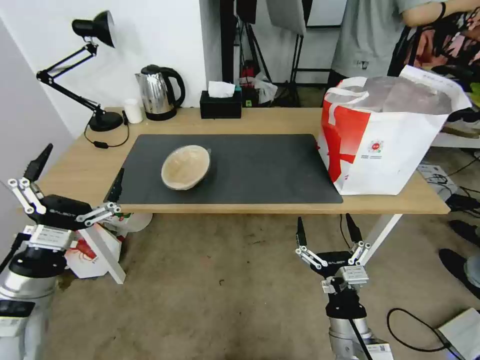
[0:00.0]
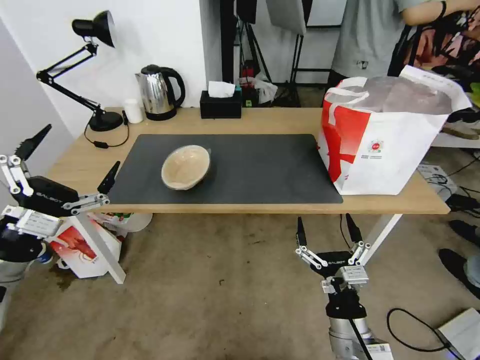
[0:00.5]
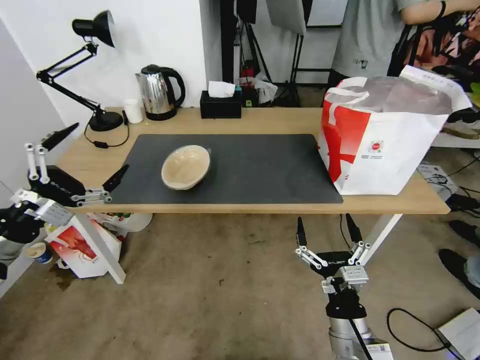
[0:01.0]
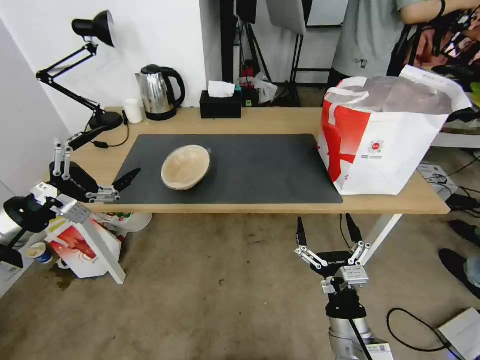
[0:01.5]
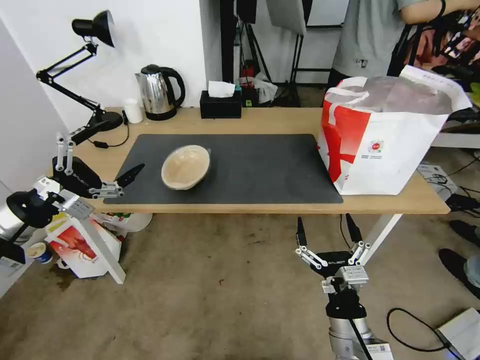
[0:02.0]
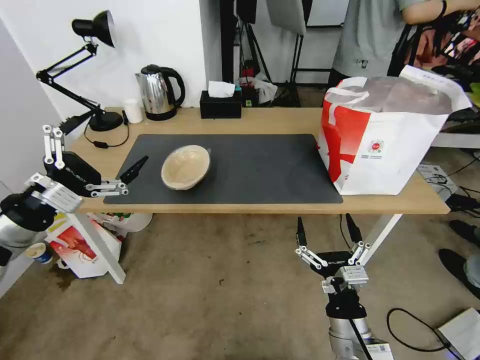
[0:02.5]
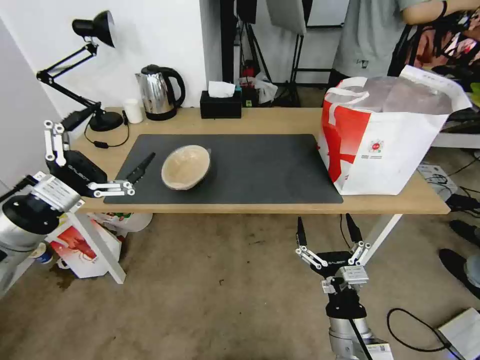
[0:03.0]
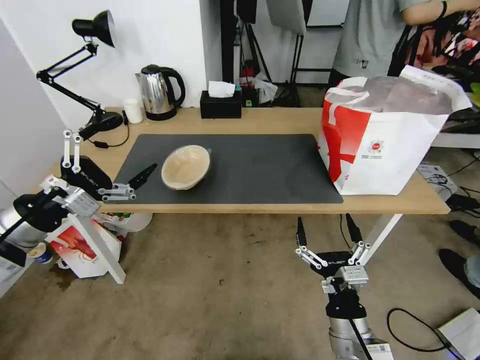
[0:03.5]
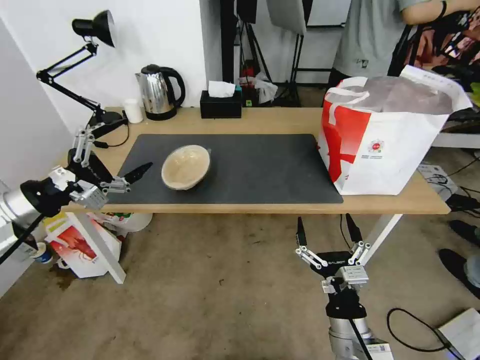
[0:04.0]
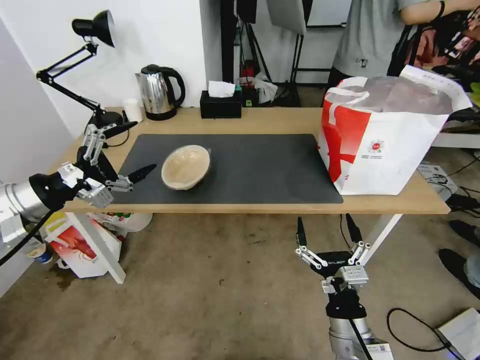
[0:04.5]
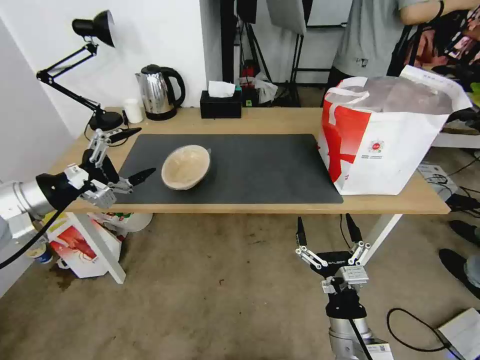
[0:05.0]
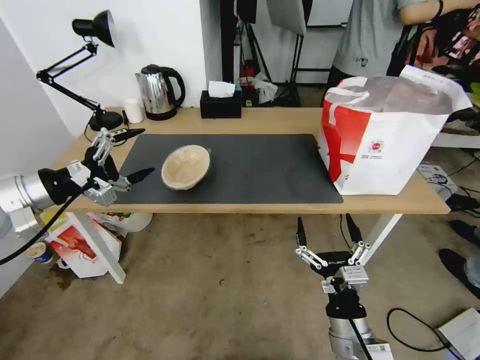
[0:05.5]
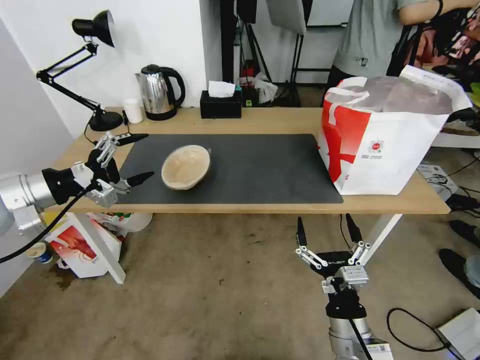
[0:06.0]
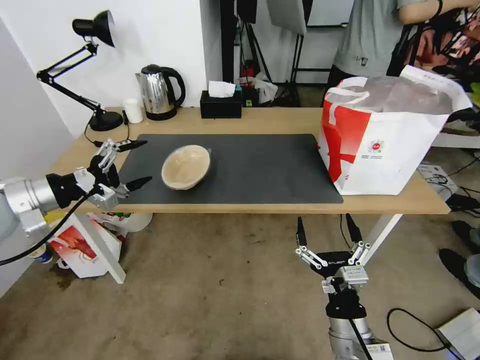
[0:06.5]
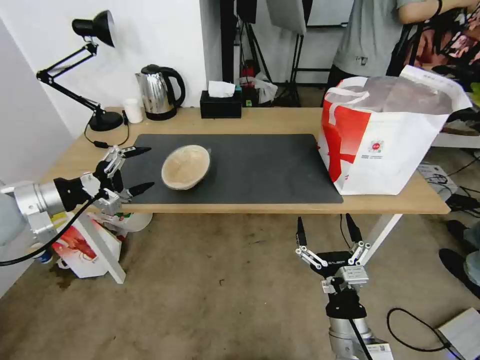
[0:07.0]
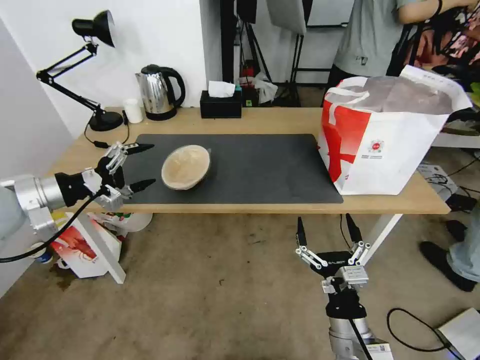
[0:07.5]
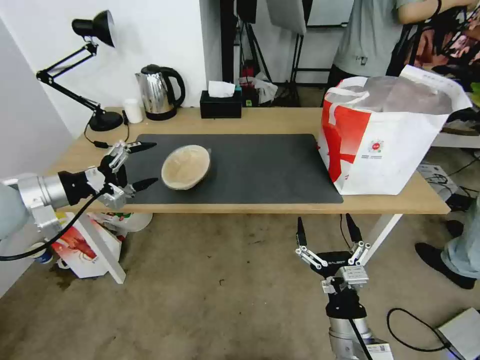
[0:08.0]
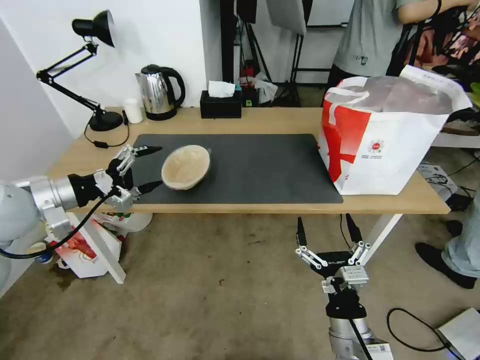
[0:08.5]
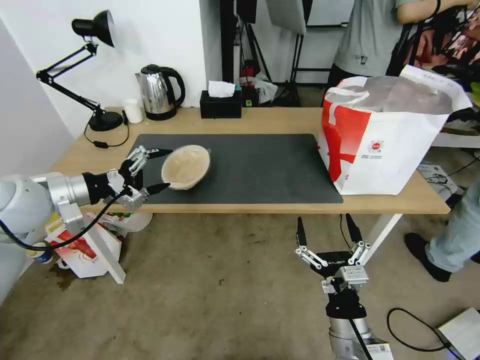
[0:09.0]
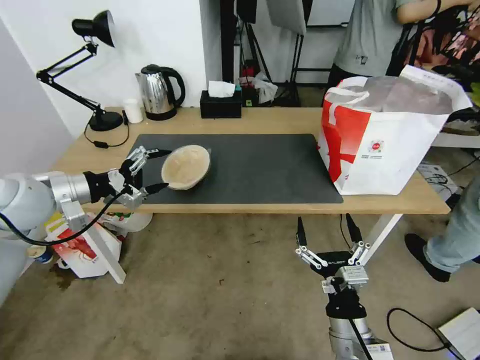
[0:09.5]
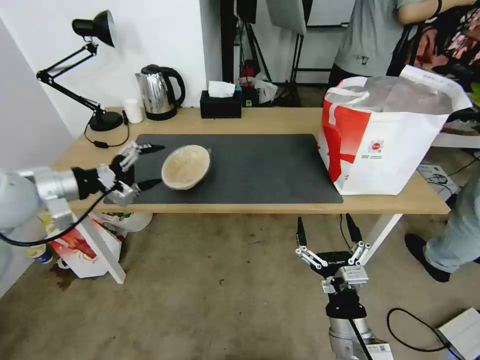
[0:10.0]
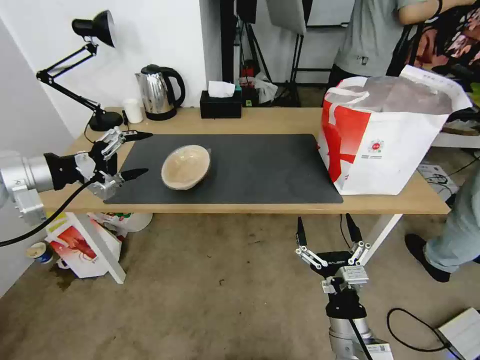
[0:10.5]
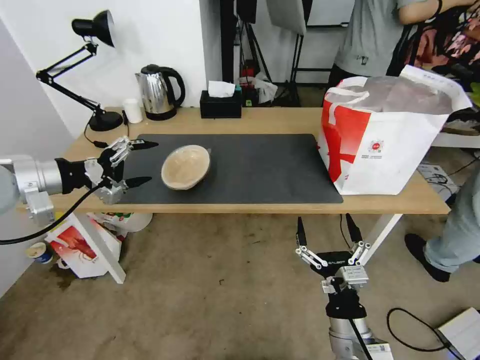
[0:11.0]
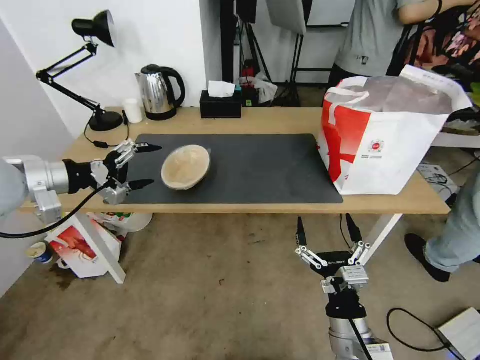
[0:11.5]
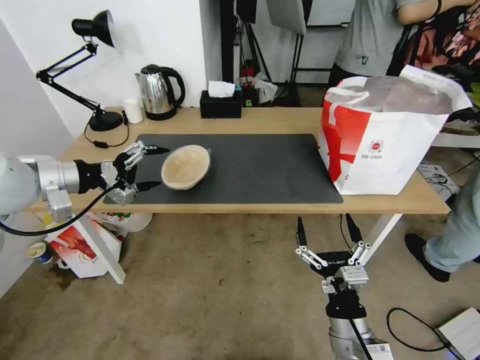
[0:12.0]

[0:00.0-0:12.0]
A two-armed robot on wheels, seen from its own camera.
Task of the whole recording: Pick up the trash from the table and place it into the takeout bag.
0:00.0 to 0:02.0: The left gripper travels upward, forward and to the left by about 15 cm.
0:04.0 to 0:06.0: The grippers make only small movements.
0:06.0 to 0:08.0: The grippers stay close to where they were, moving slightly.
0:08.0 to 0:12.0: The grippers stay close to where they were, moving slightly.

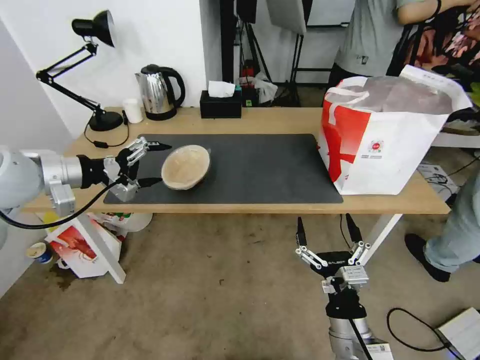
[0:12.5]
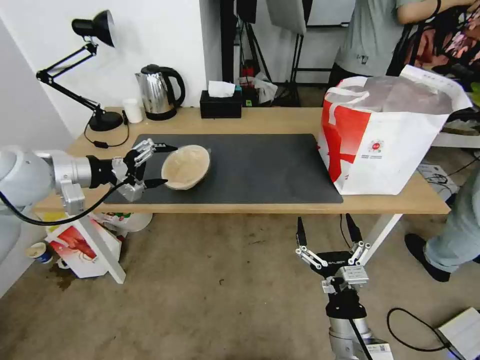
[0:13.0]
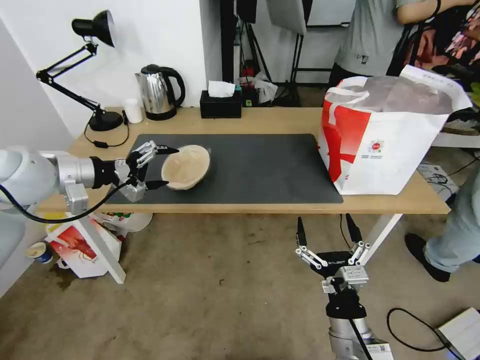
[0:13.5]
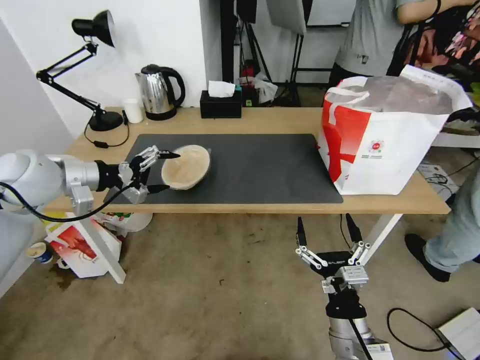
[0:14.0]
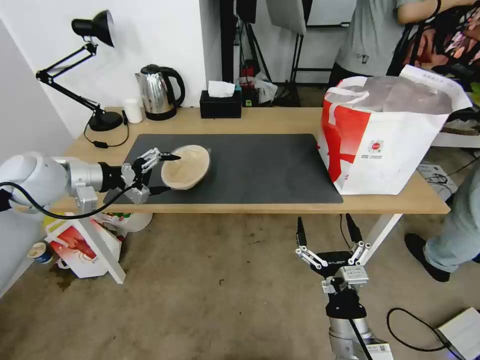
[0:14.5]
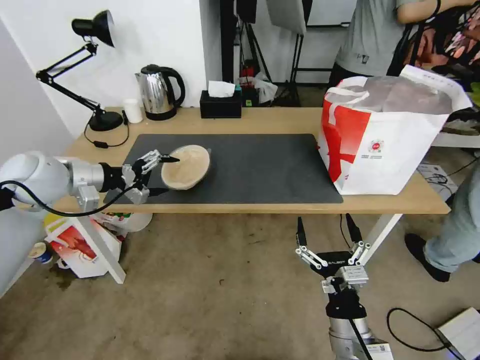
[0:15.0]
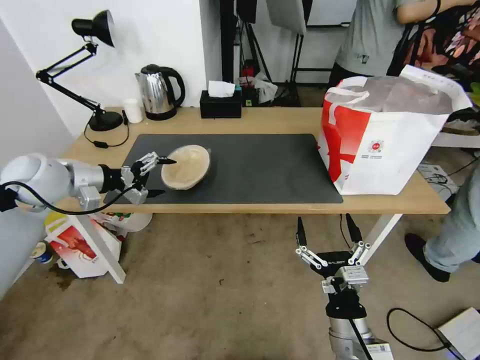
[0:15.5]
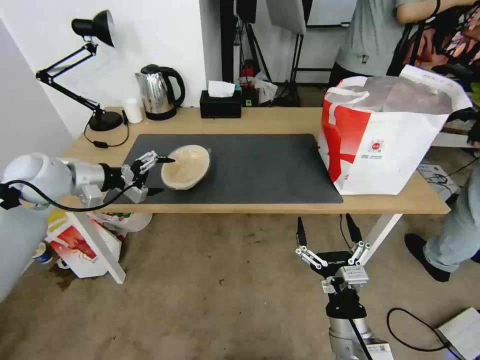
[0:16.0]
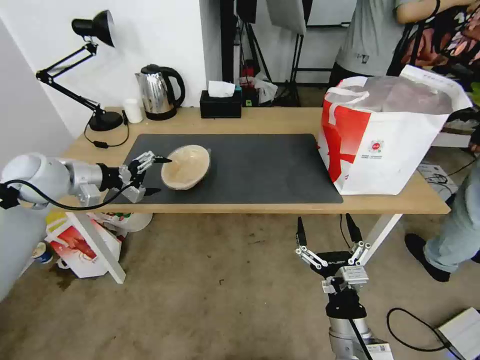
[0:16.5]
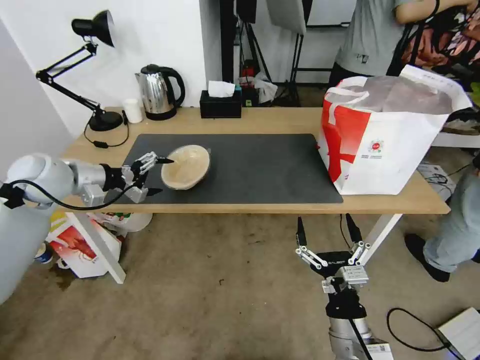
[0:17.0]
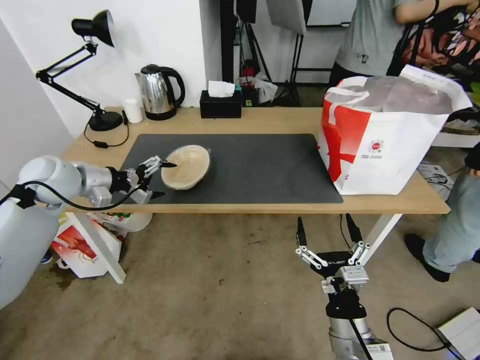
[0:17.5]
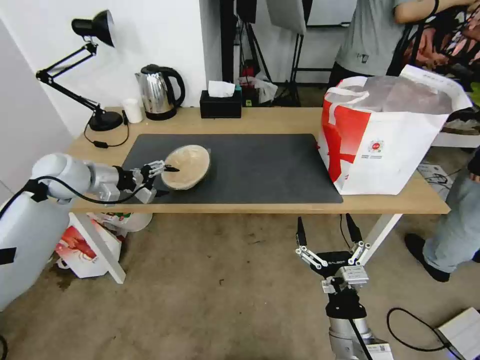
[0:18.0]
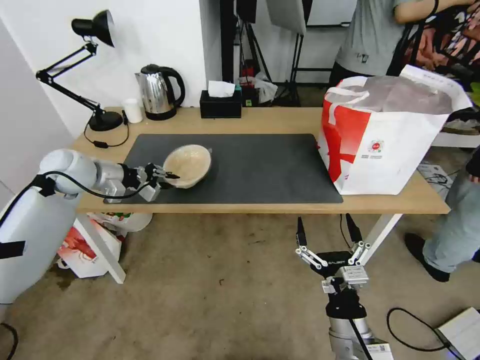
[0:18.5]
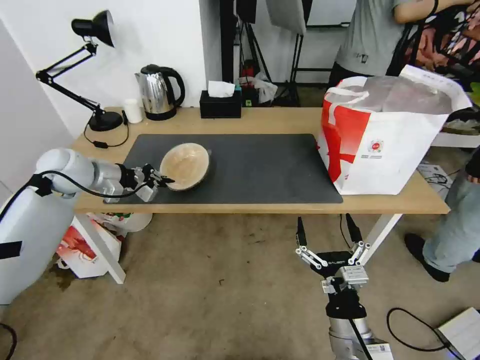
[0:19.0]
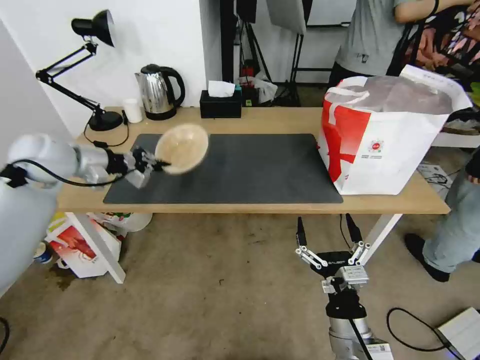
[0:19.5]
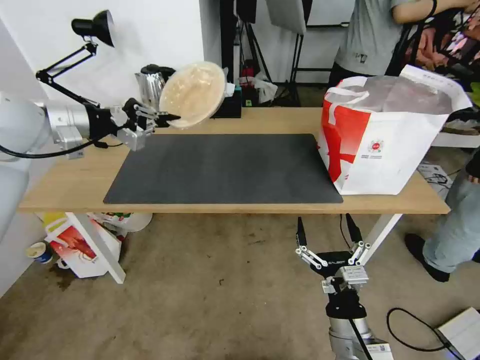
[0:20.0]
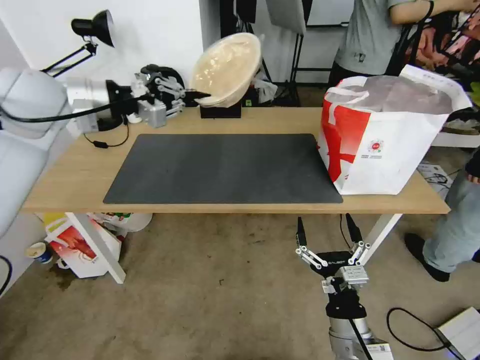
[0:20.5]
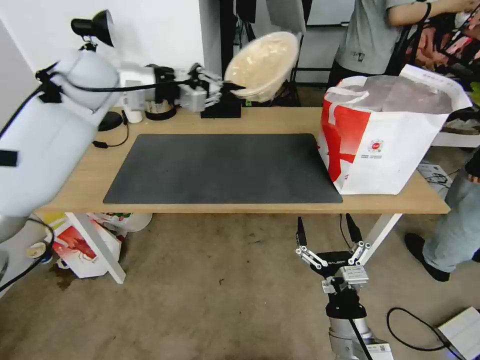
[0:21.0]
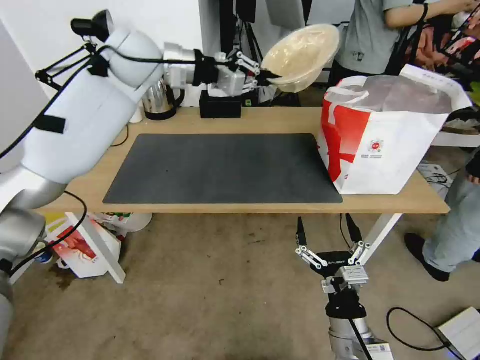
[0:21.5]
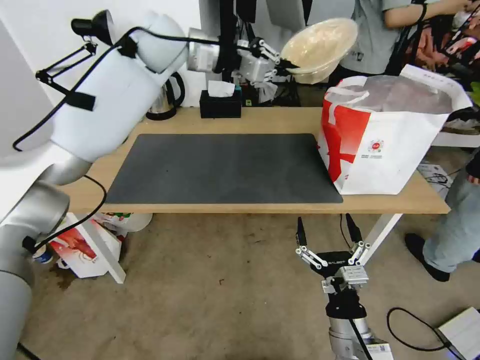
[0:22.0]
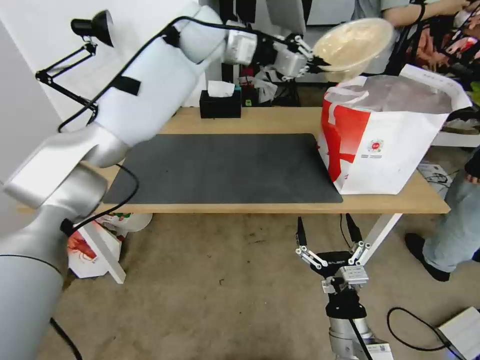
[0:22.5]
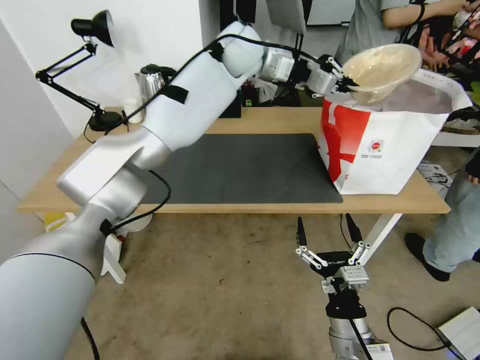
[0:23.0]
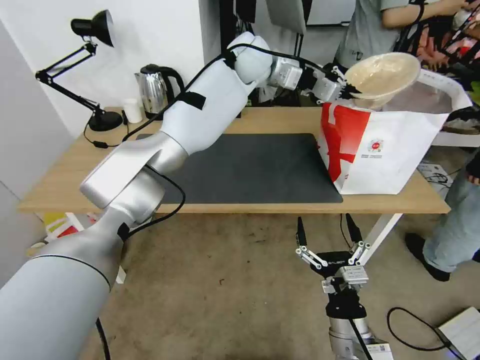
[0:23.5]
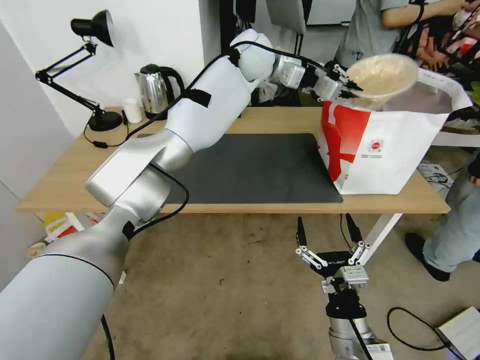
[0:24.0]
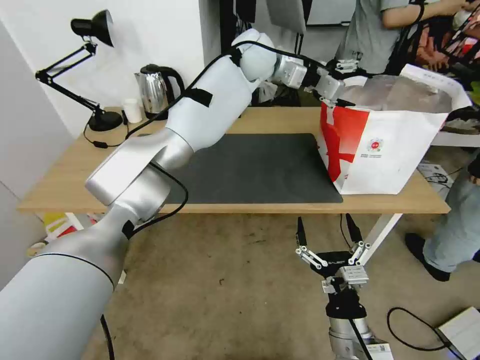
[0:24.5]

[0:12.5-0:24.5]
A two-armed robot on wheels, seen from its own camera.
Task of the whole recording: Pick up the trash from the table and place it into the takeout bag.
0:12.5 to 0:14.5: The left gripper changes place by approximately 5 cm.
0:14.5 to 0:16.5: There are only small adjustments of the grippers.
0:16.5 to 0:18.5: The left gripper ends up roughly 5 cm from where it was, and closes its fingers.
0:18.5 to 0:20.5: The left gripper moves upward, approximately 20 cm.
0:20.5 to 0:22.5: The left gripper moves to the right and forward, approximately 30 cm.
0:22.5 to 0:24.5: The left gripper shifts some 10 cm to the right, and opens up.

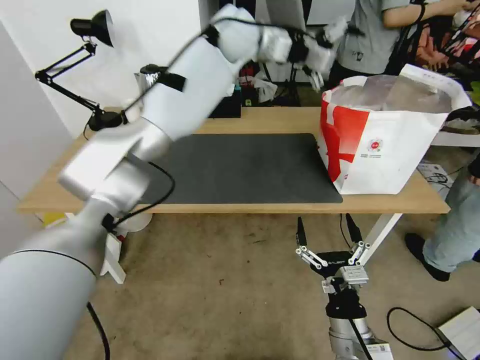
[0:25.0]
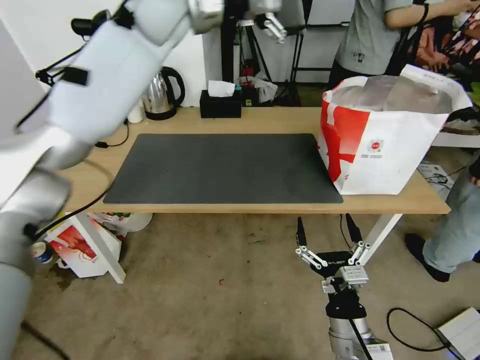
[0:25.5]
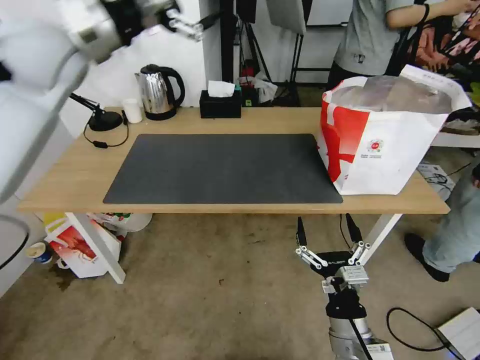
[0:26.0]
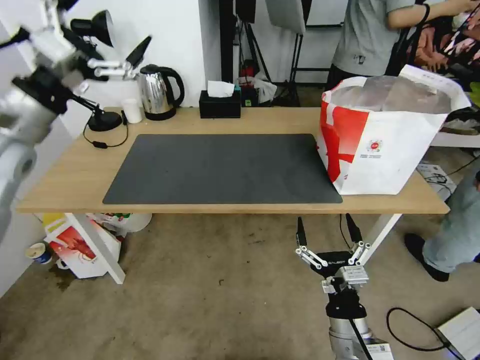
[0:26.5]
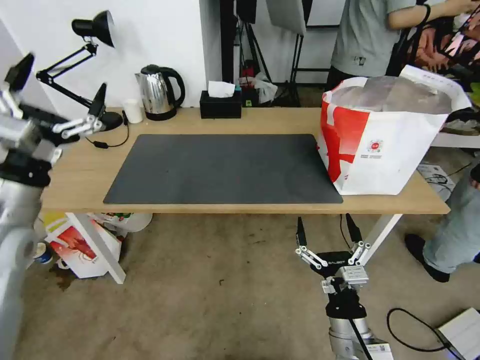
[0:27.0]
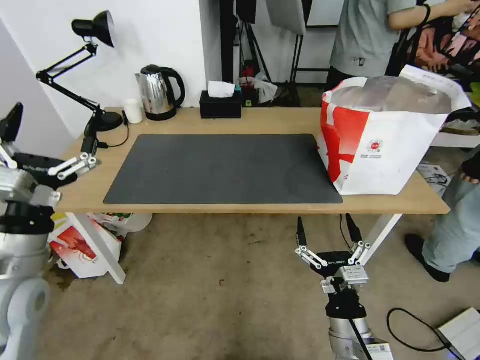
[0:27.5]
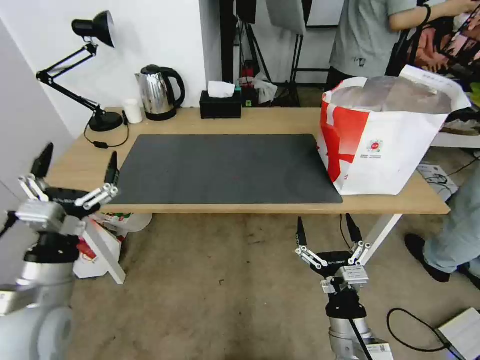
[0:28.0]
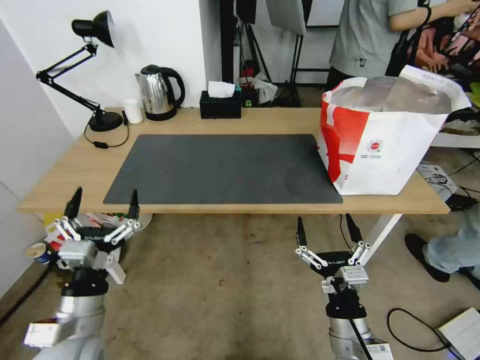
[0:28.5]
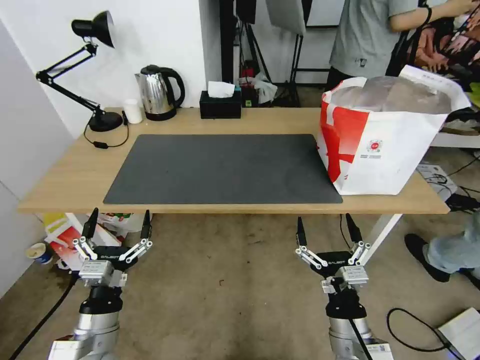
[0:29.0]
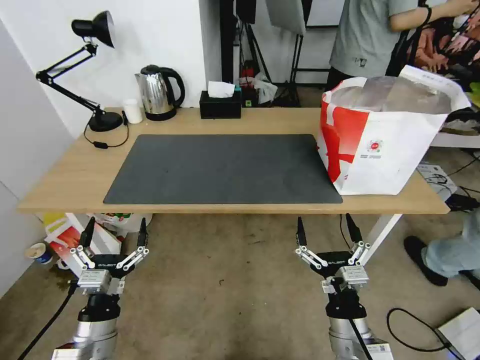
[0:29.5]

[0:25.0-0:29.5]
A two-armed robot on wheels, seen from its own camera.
Task of the whole recording: Pick up the trash from the table and place it into the takeout bag.
0:25.0 to 0:27.0: The left gripper goes approximately 50 cm to the left, backward and downward.
0:27.0 to 0:29.5: The left gripper goes approximately 30 cm downward, backward and to the right.
